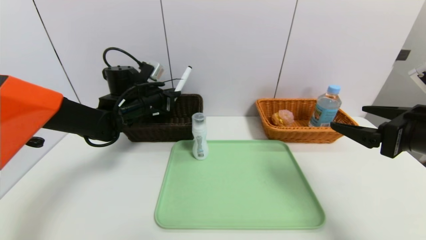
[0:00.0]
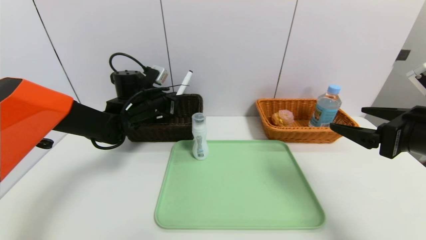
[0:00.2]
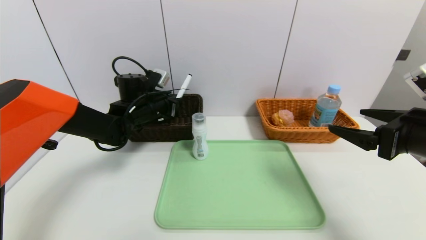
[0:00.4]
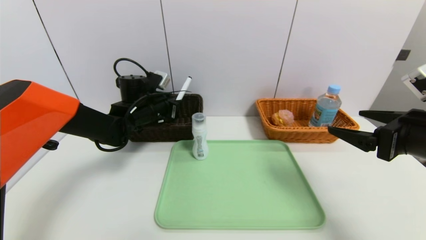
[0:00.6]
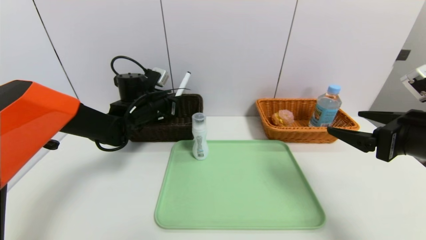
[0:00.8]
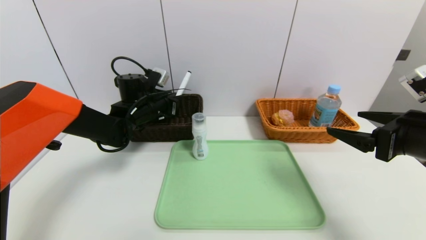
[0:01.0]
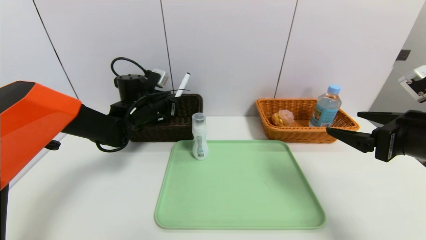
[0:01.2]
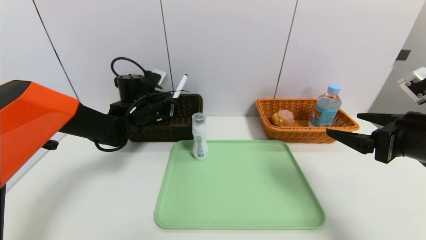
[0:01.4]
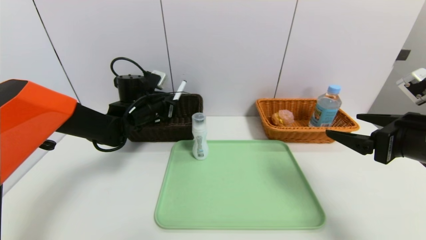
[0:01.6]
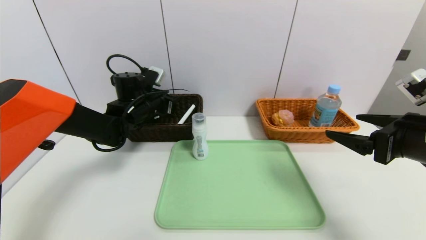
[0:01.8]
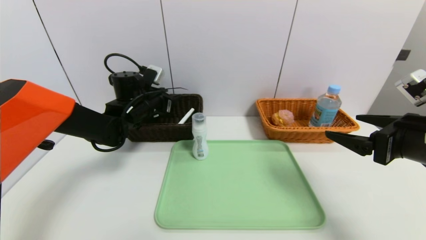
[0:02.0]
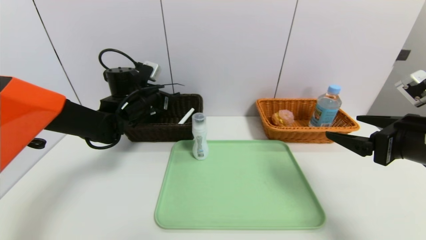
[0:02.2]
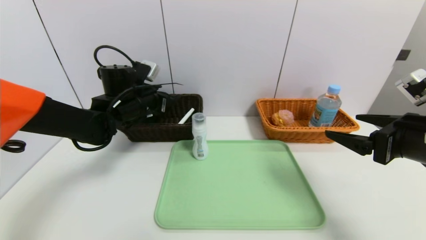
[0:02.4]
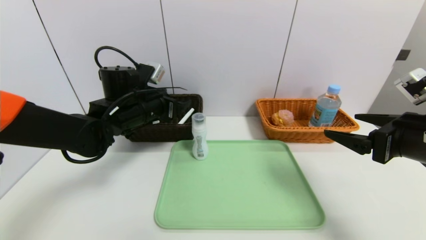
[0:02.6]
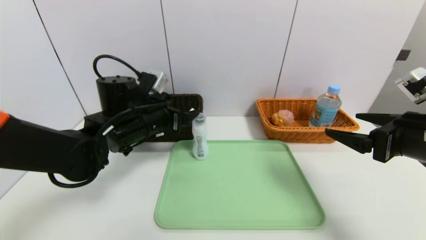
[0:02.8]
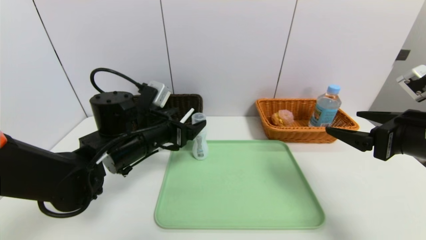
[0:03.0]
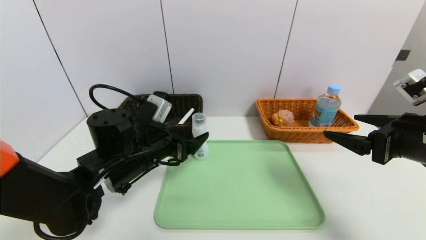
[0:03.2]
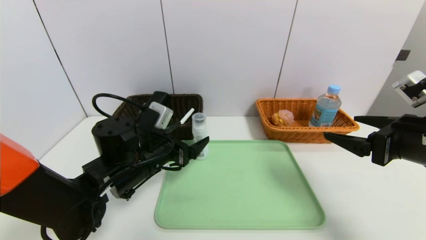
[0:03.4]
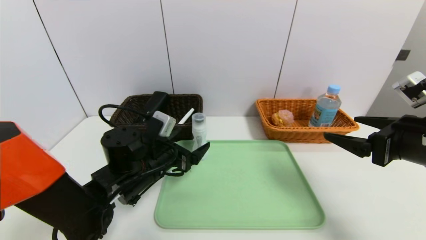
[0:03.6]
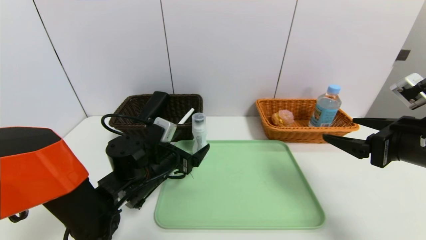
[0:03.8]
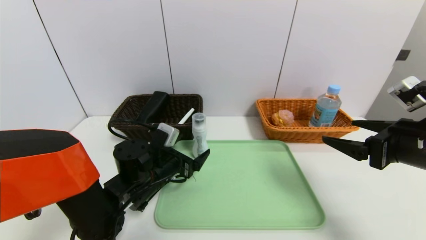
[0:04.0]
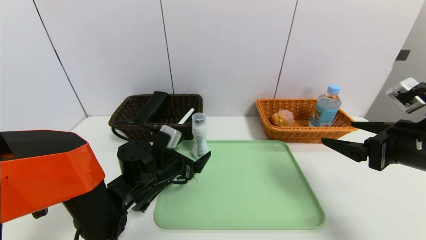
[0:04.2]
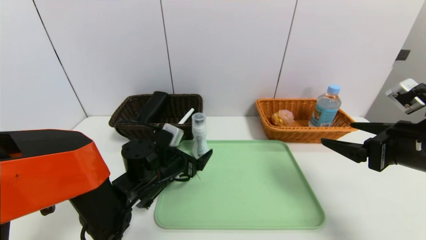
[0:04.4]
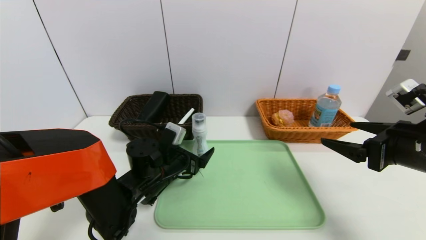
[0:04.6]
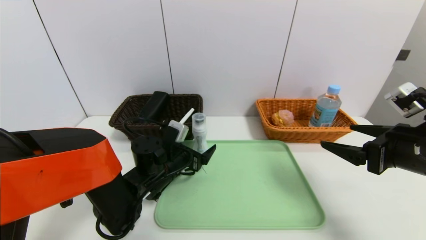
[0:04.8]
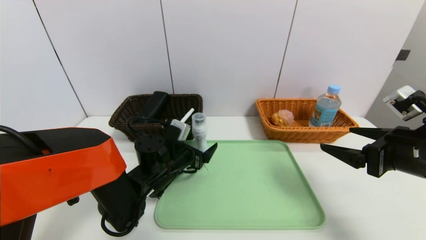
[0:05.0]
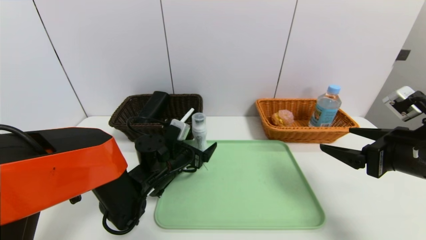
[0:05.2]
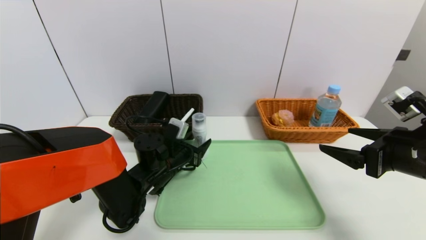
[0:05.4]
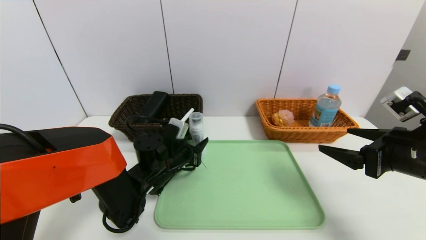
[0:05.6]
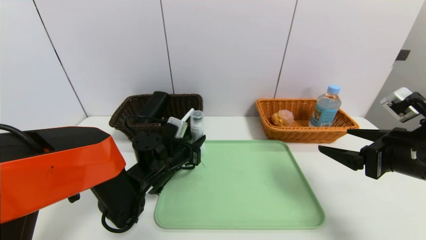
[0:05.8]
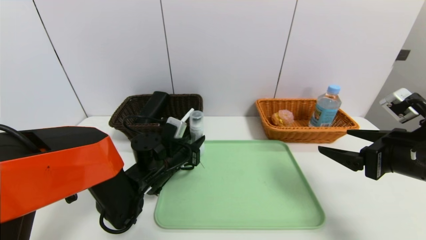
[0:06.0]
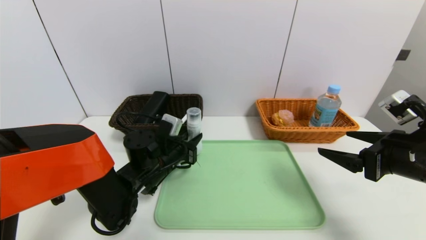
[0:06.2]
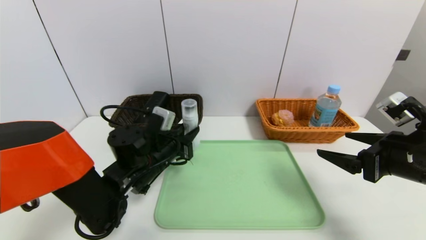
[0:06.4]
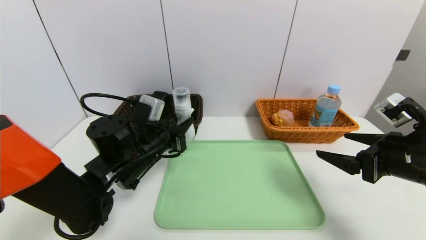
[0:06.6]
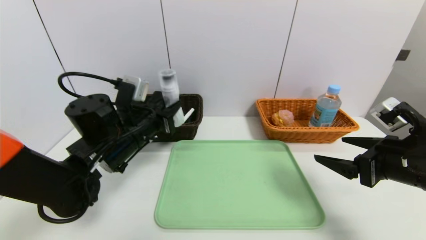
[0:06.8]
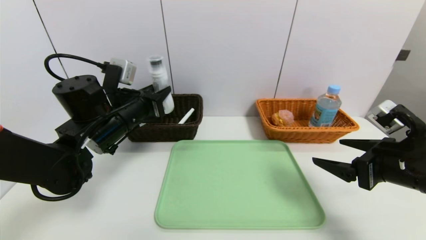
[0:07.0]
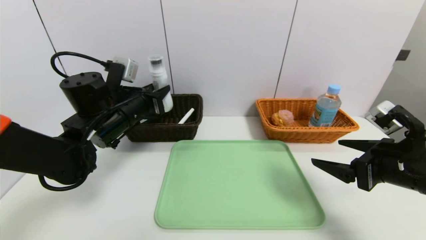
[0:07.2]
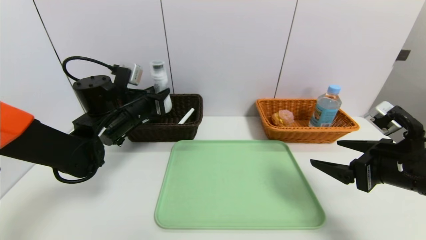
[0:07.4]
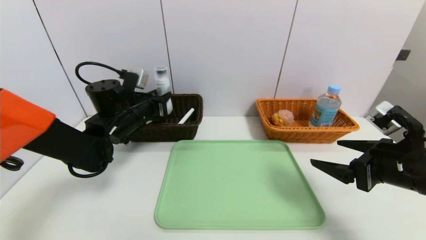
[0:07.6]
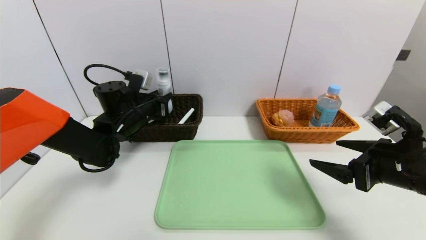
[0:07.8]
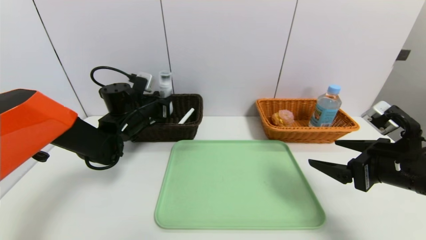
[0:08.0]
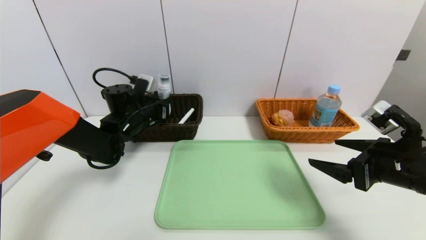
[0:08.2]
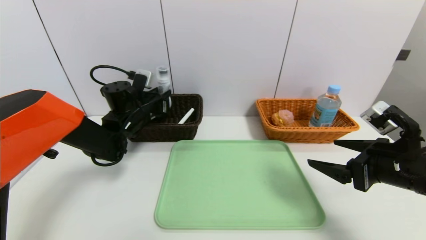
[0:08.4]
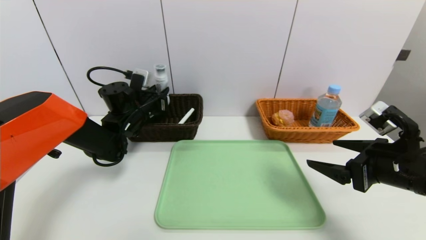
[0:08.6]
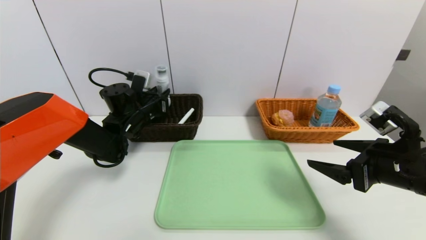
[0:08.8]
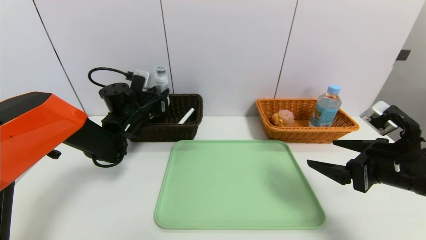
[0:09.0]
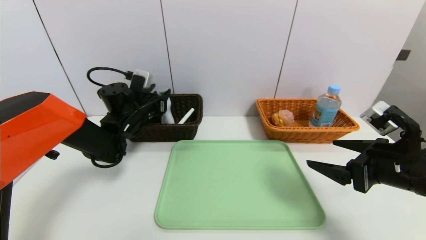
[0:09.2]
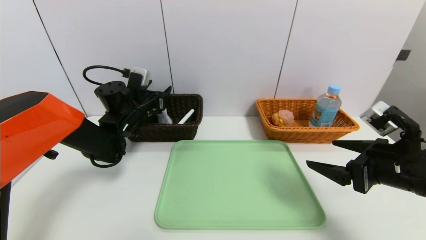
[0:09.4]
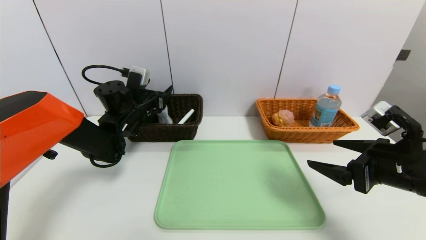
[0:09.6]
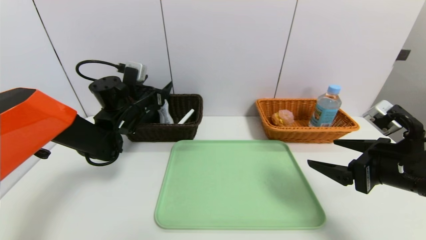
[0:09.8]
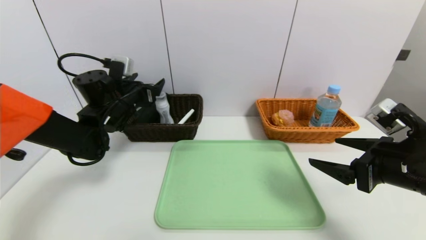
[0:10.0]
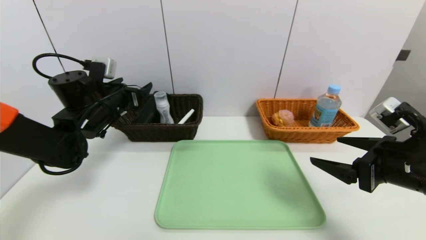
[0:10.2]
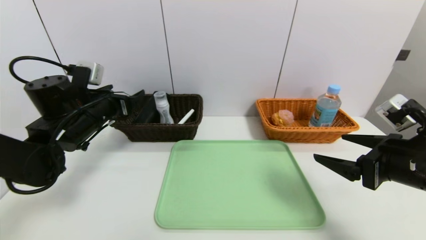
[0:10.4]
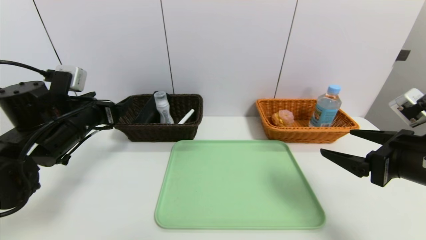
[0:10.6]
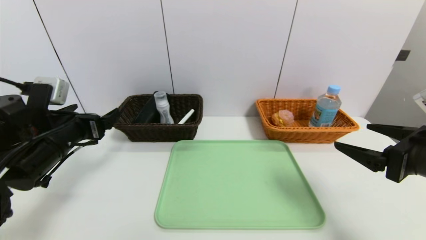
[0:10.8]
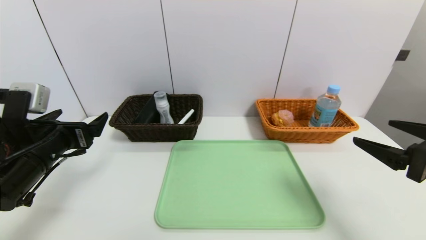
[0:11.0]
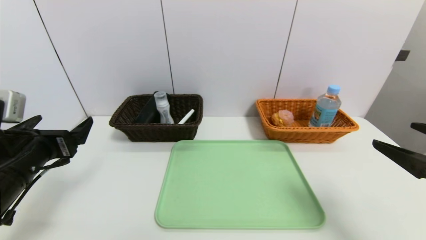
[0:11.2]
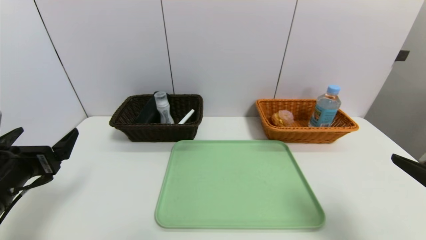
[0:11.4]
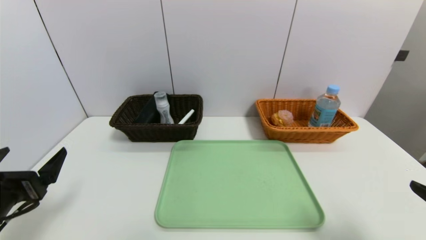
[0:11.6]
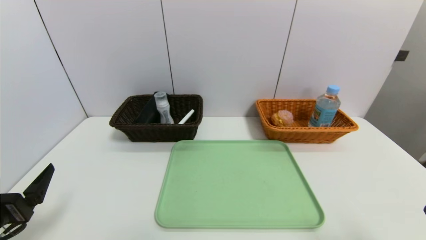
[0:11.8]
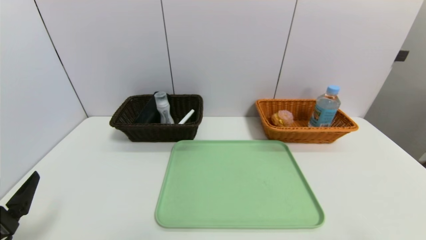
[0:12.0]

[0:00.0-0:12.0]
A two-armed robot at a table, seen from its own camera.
Task of the whole recording: place the food in the right basket with the right gripper, and place the non food items in the left basket with the left gripper.
Step, 0:00.0 to 0:02.0: Grasp the black marker and put it in the left basket.
Step, 0:02.2 to 0:09.8: Grasp the washing liquid and put it in the left basket.
0:00.0 to 0:01.6: There are only small adjustments of the grippers.
0:01.6 to 0:03.0: The left gripper shifts some 15 cm backward, and opens up.
0:03.0 to 0:04.4: The left gripper travels downward by approximately 10 cm.
0:04.4 to 0:06.0: The left gripper closes up.
0:06.0 to 0:07.6: The left gripper travels upward, to the left and forward by roughly 15 cm.
0:07.6 to 0:09.0: The grippers move only a little.
0:09.0 to 0:10.4: The left gripper heads backward and to the left, covering approximately 10 cm, and opens its fingers.
0:10.4 to 0:12.0: Both grippers travel together backward, approximately 20 cm.

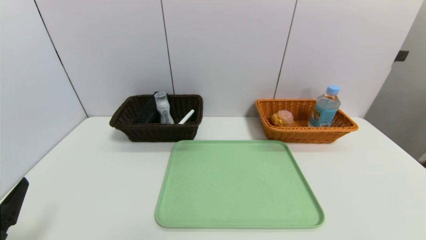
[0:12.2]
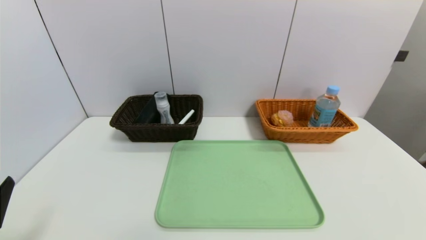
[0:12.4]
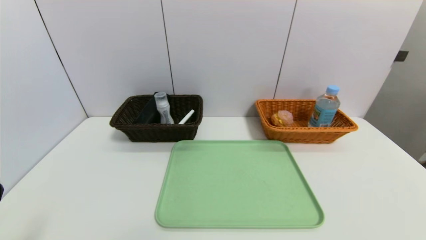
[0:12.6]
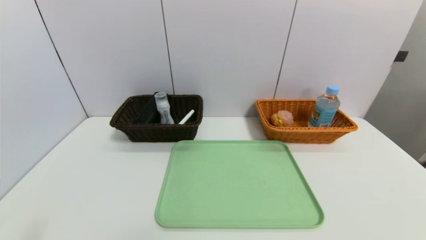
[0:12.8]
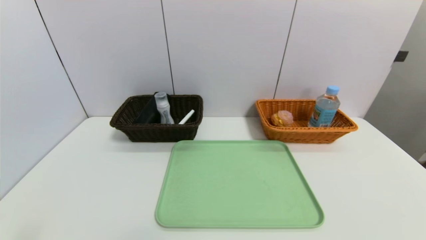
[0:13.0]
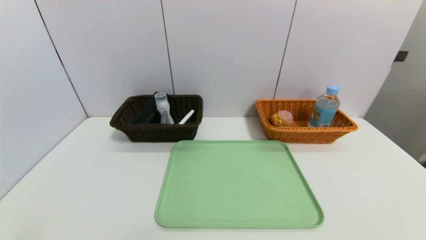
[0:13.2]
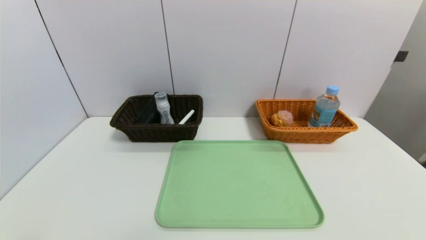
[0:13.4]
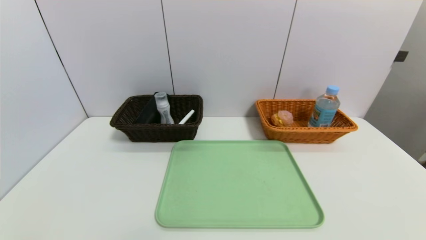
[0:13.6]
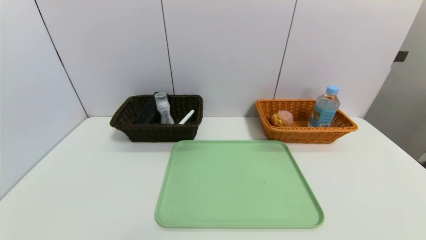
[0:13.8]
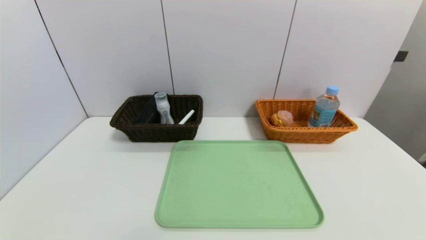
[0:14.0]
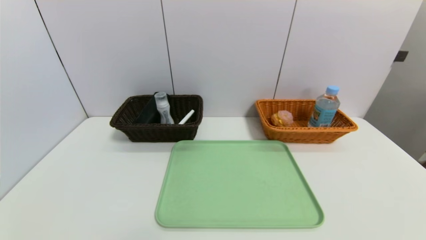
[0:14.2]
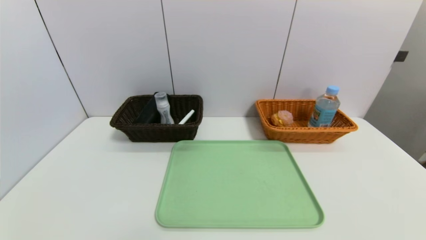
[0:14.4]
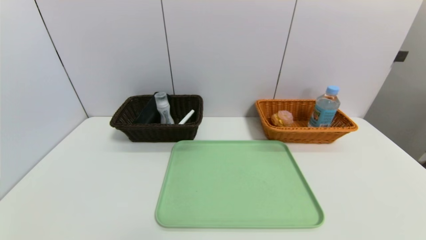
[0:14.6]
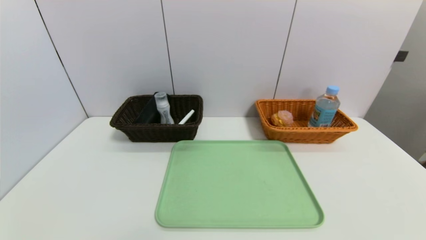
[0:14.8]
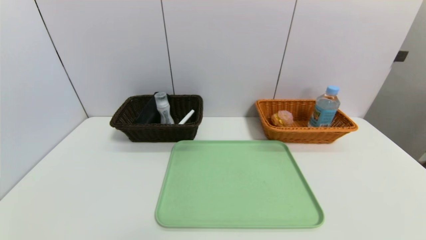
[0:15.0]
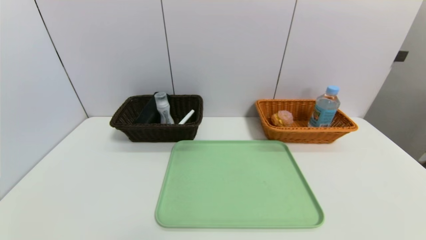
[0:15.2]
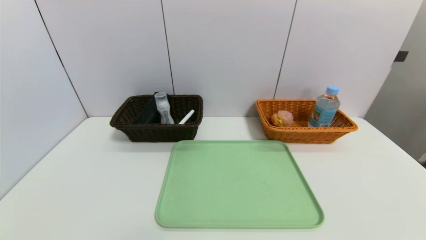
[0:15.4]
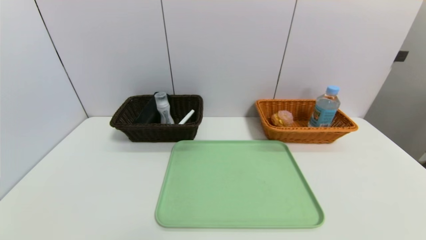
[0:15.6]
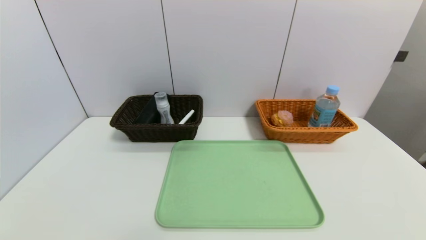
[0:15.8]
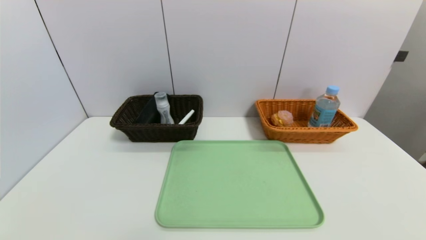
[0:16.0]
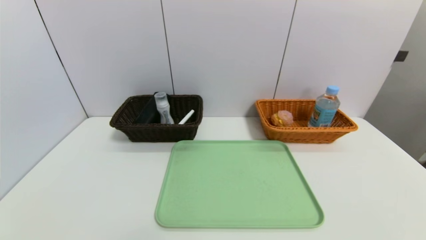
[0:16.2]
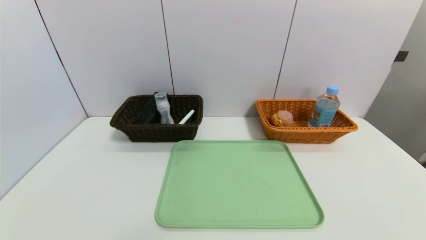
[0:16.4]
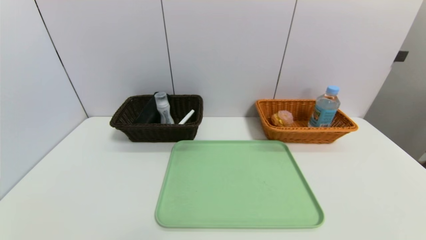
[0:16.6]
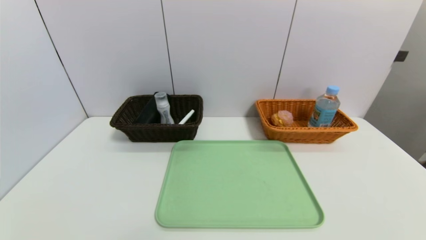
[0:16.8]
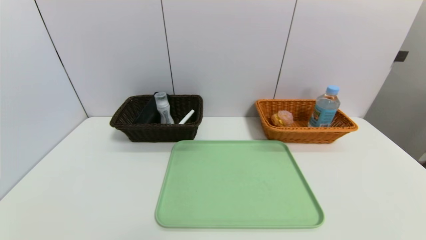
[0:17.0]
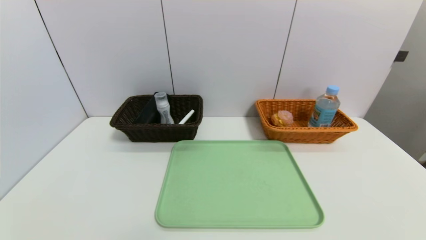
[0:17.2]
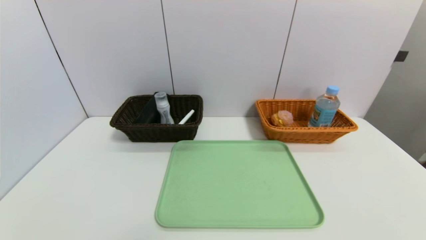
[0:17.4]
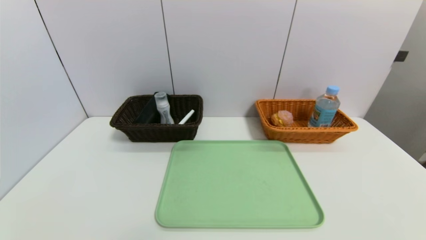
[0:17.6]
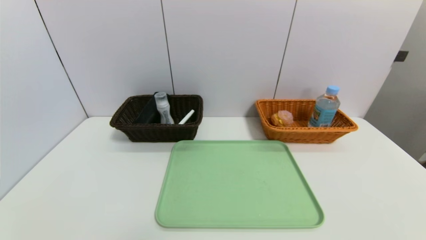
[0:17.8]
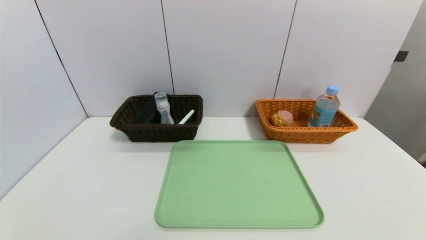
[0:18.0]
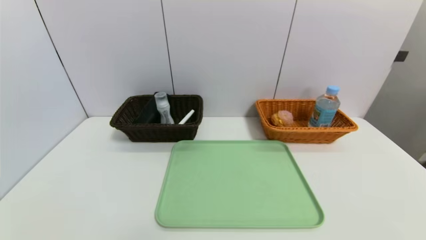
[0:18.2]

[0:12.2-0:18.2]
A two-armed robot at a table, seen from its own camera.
Task of the whole recording: place the food in the right basket with the right gripper, and place the non food items in the left basket with the left gripper.
0:12.2 to 0:13.8: The left gripper goes some 10 cm backward.
